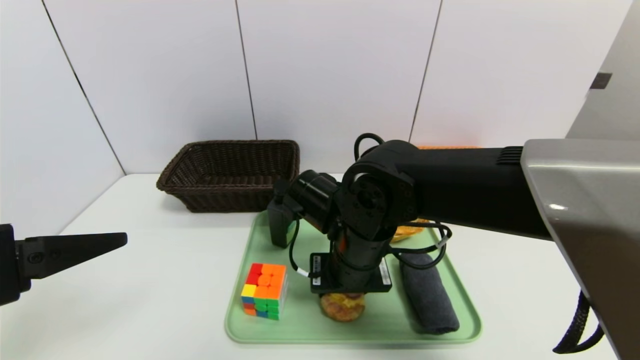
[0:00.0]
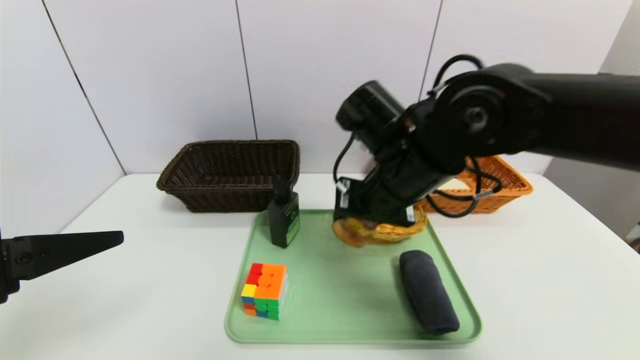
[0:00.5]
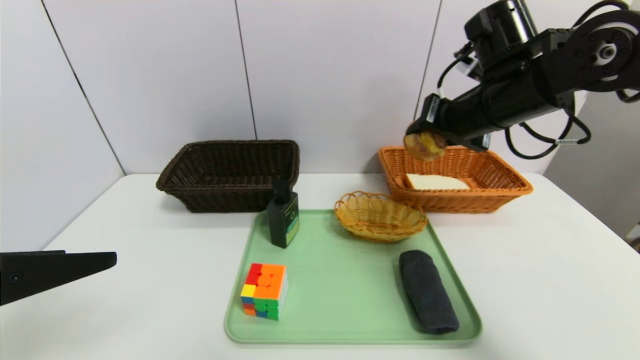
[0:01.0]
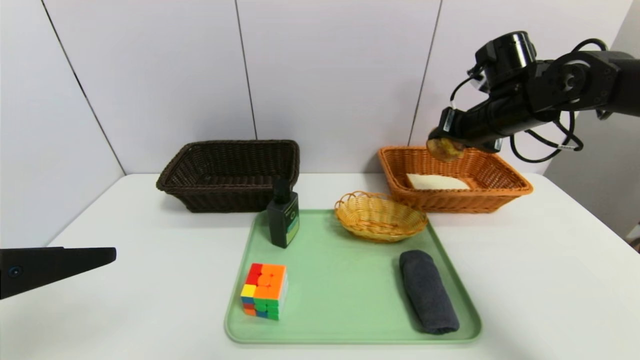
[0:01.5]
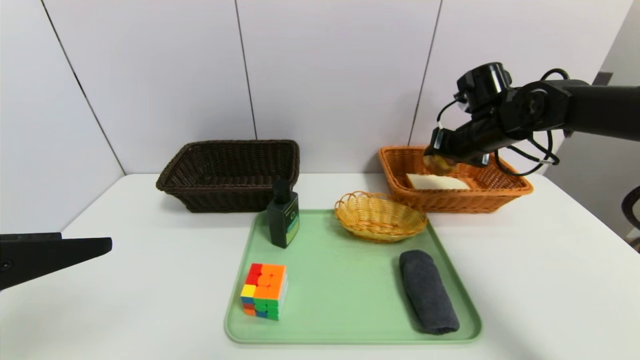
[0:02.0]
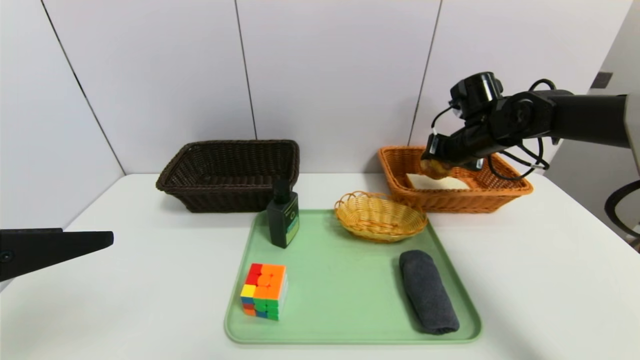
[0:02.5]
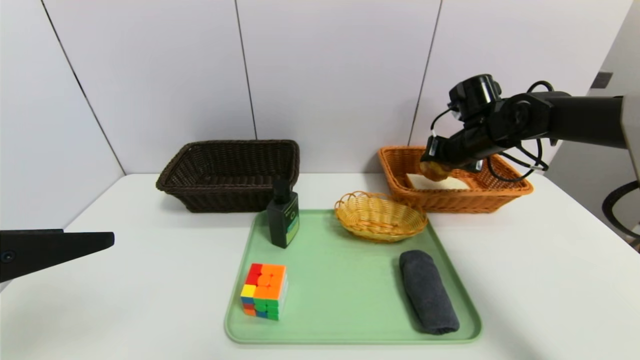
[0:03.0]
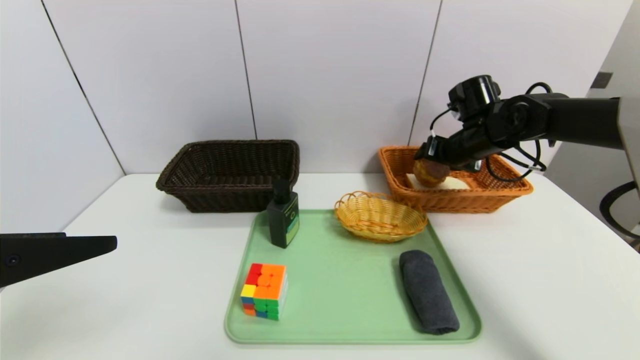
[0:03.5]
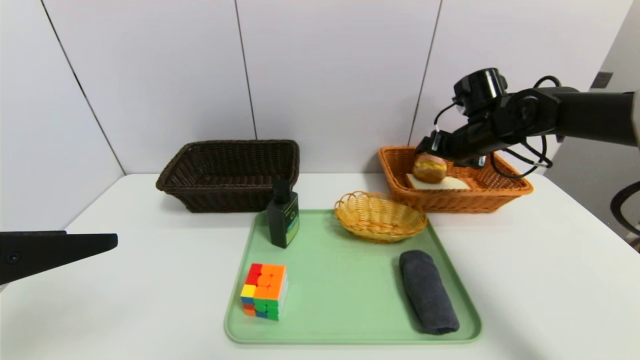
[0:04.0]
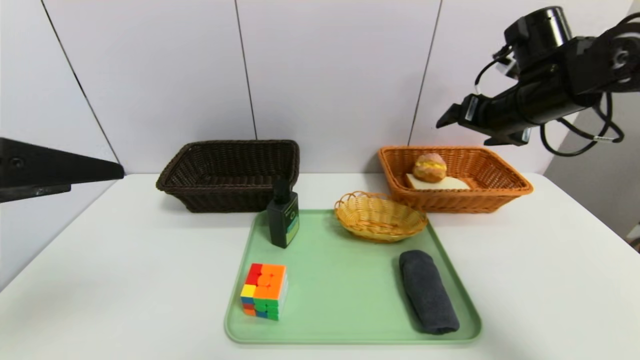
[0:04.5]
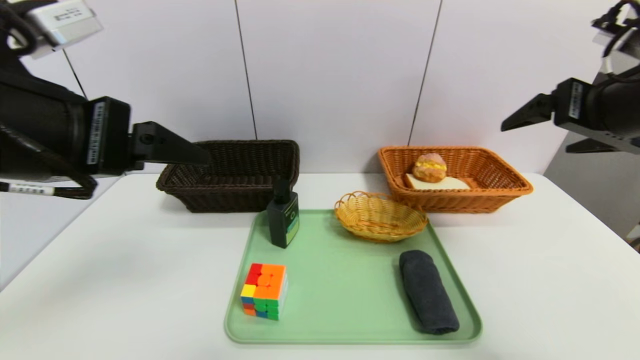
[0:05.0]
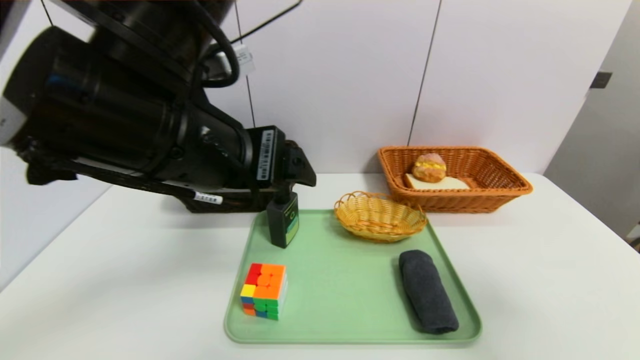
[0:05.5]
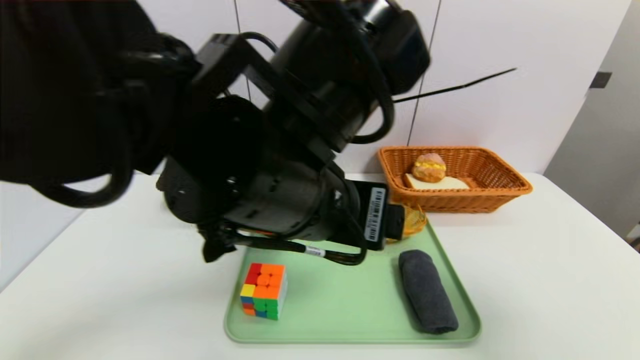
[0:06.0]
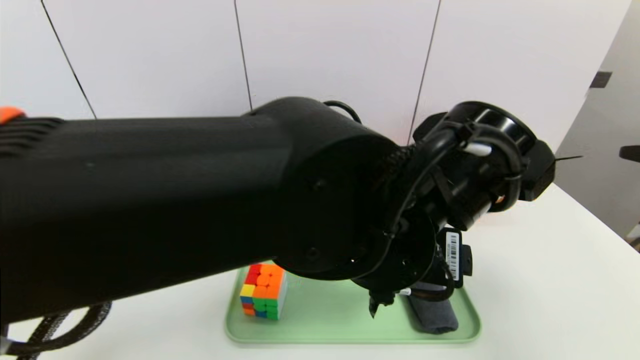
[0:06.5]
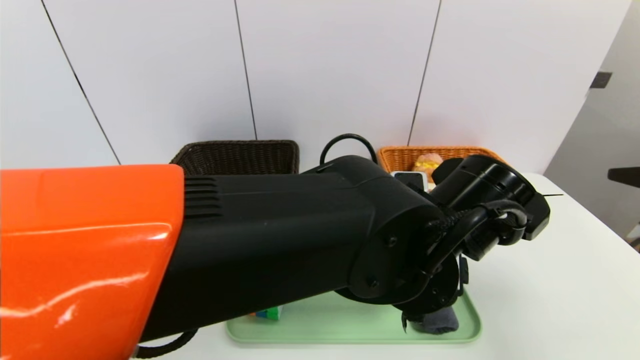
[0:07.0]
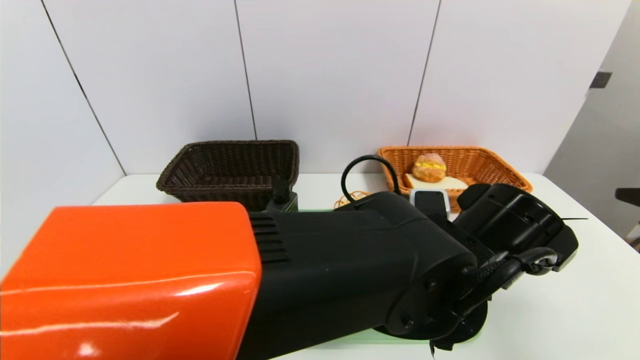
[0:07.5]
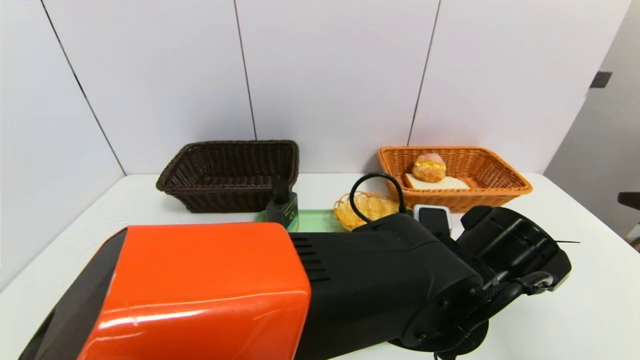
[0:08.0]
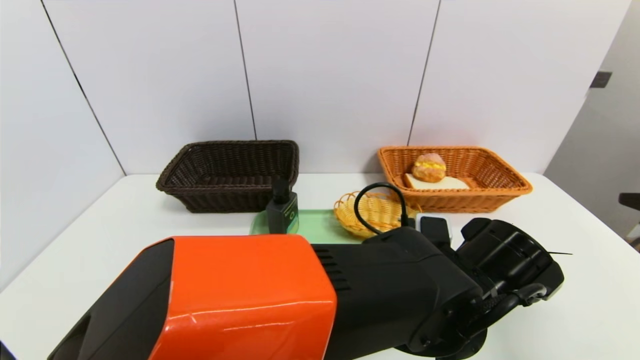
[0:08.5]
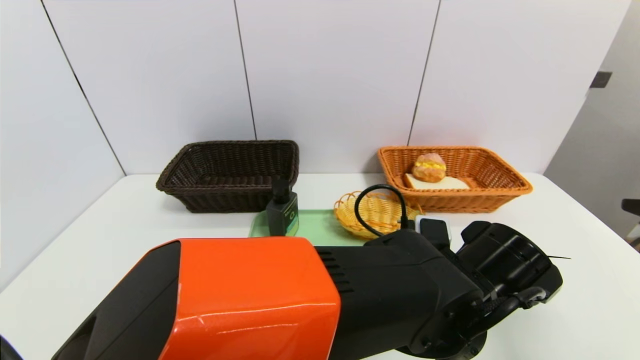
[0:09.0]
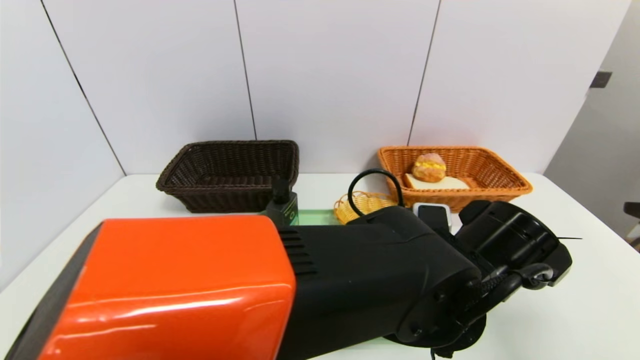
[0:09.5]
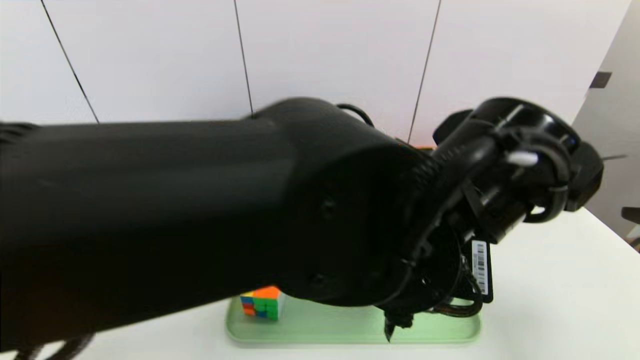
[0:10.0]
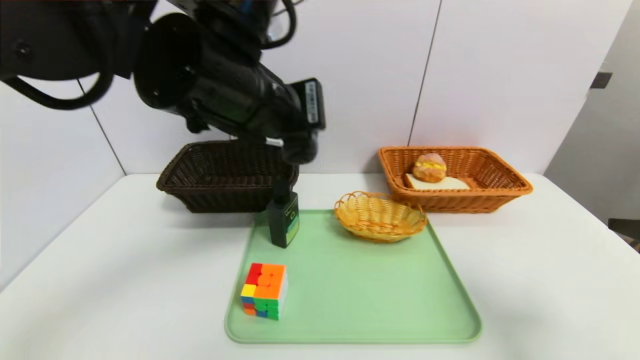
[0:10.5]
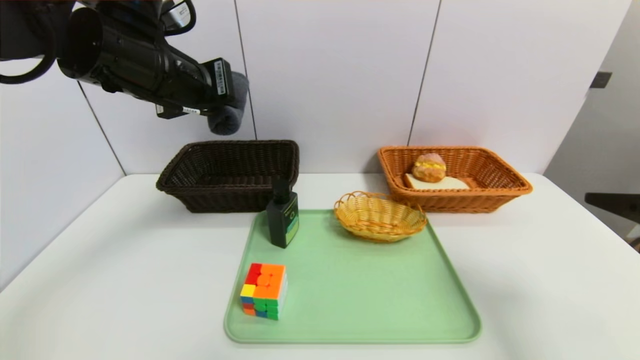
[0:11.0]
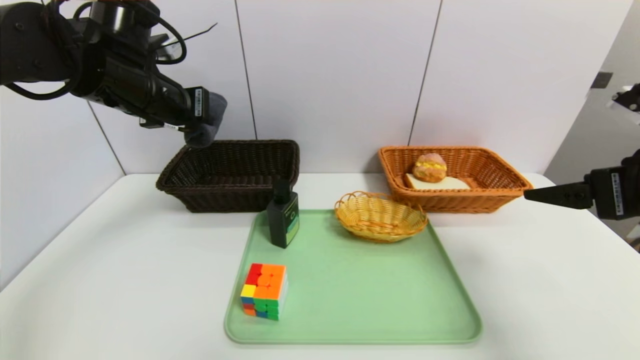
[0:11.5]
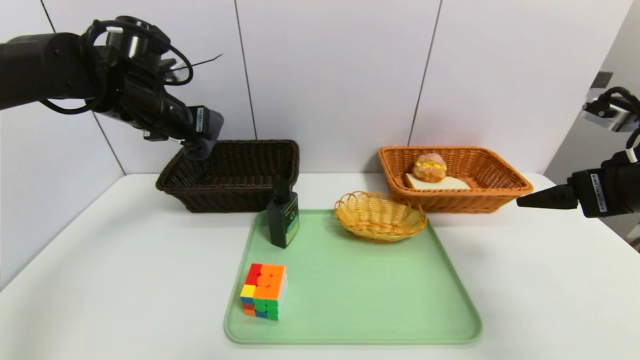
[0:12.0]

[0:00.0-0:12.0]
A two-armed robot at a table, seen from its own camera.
Task of the whole recording: place the food in the right basket with the right gripper, and place the non food items in the left basket with the left gripper.
Step, 0:00.0 to 0:04.0: Grasp the egg yolk pastry and put it in the right basket.
0:00.0 to 0:02.0: The right gripper goes some 30 cm to the right and forward.
0:02.0 to 0:04.0: The right gripper opens up.
0:04.0 to 0:06.0: The left gripper is displaced to the right by approximately 25 cm. The right gripper goes some 35 cm backward.
0:06.0 to 0:08.0: The left gripper goes about 20 cm downward and to the right.
0:08.0 to 0:10.0: The left gripper goes some 10 cm upward and to the left, and closes its fingers.
0:10.0 to 0:12.0: The right gripper goes about 10 cm forward, while the left gripper shifts about 35 cm to the left and forward.

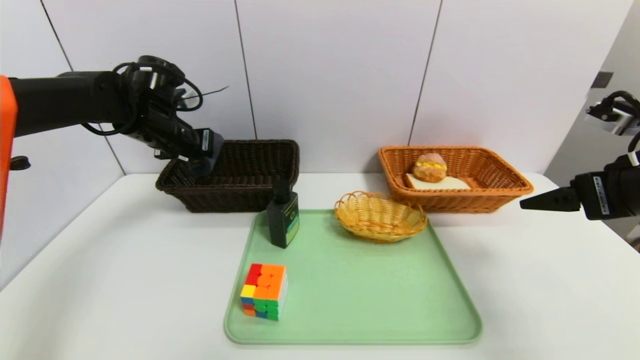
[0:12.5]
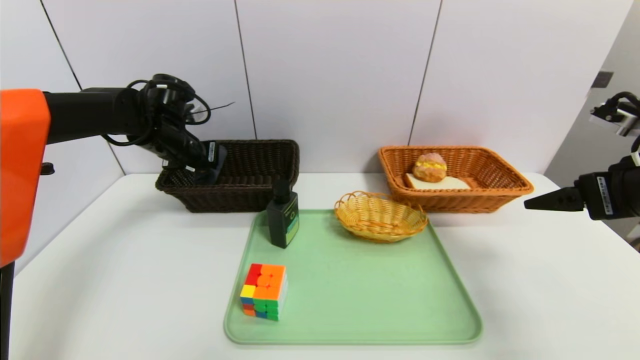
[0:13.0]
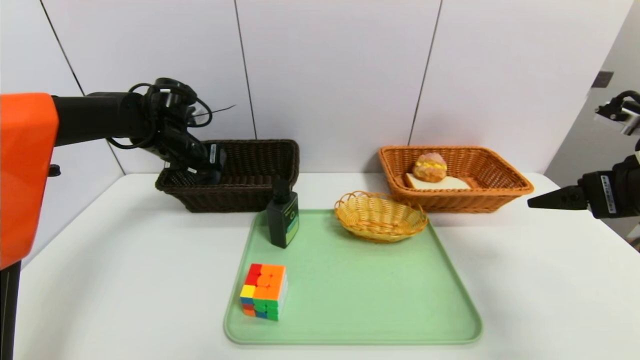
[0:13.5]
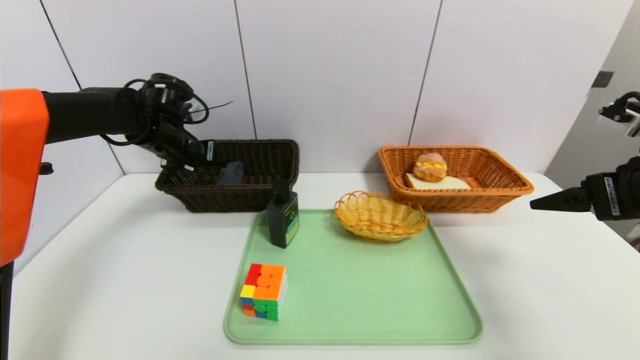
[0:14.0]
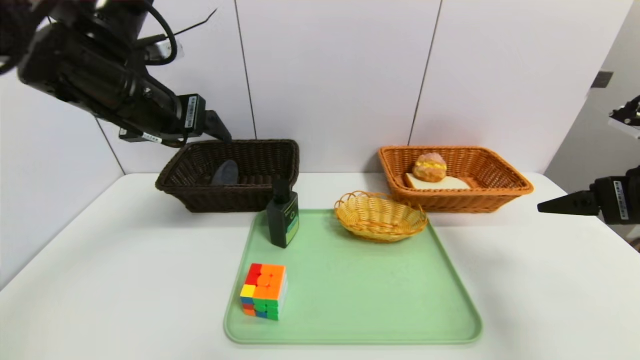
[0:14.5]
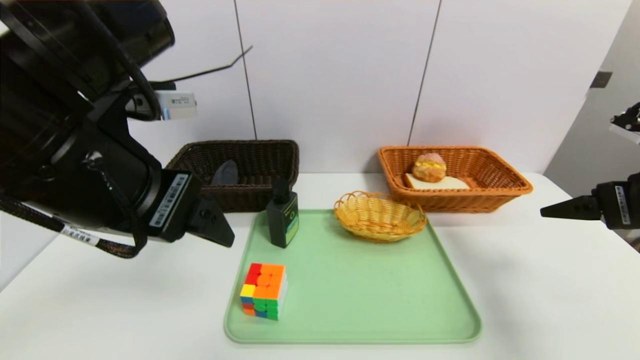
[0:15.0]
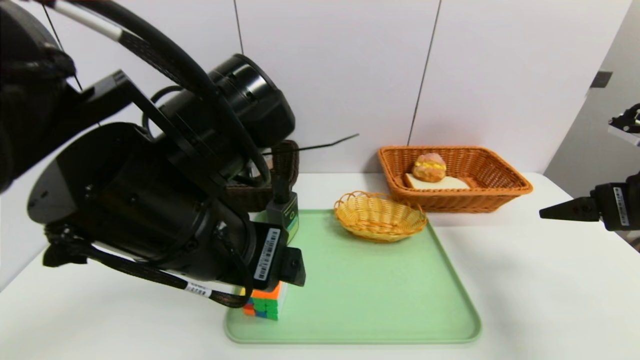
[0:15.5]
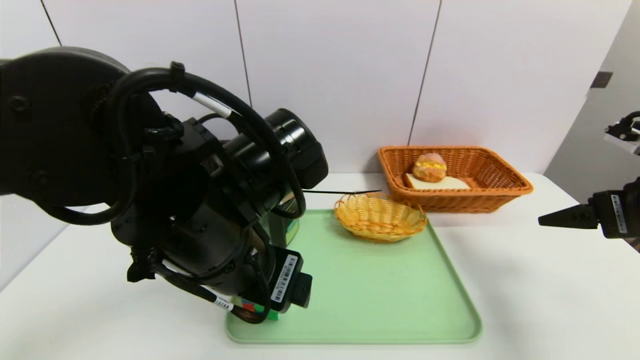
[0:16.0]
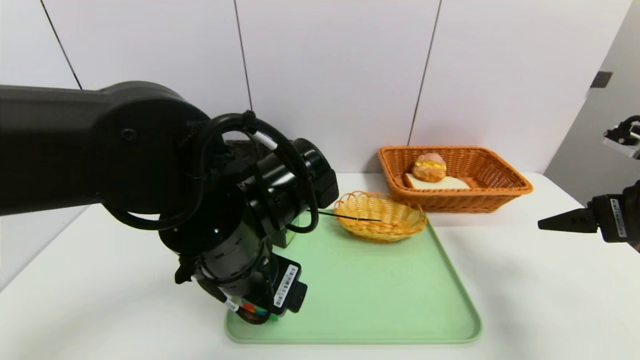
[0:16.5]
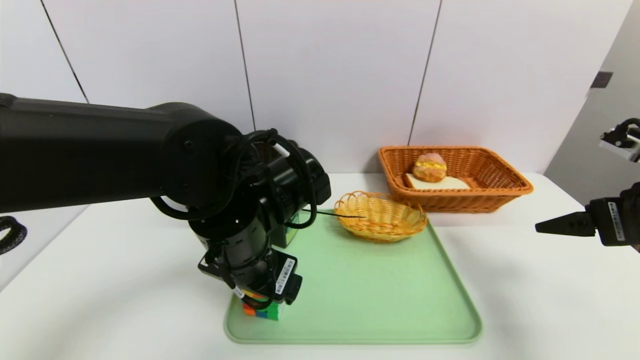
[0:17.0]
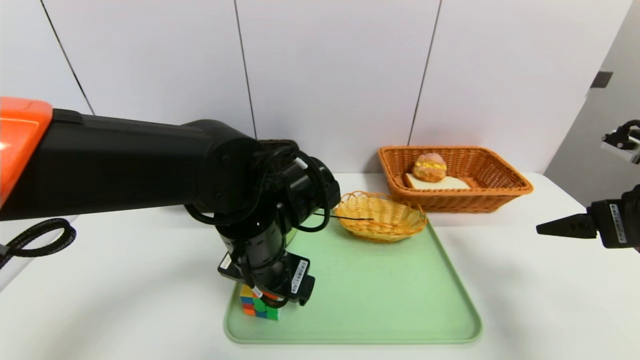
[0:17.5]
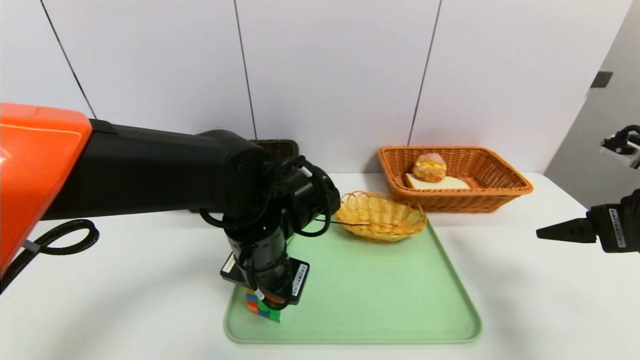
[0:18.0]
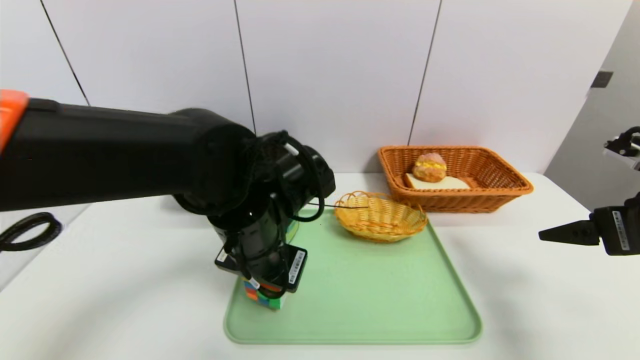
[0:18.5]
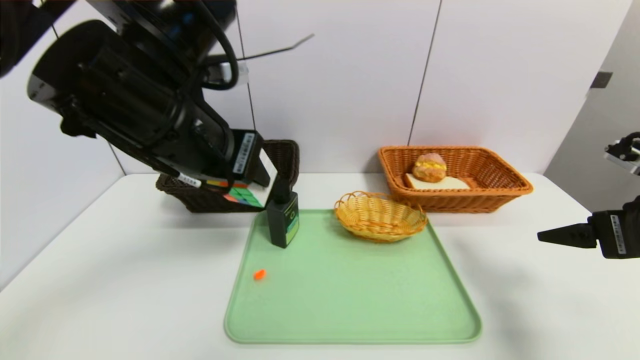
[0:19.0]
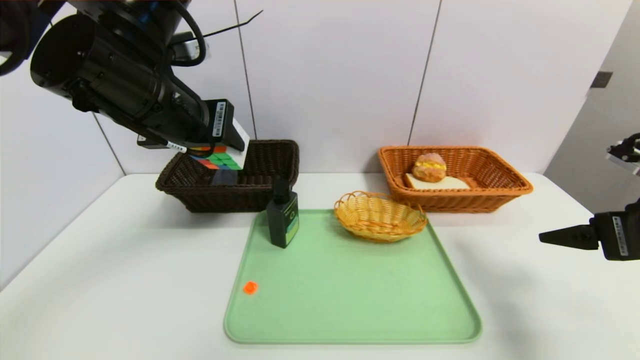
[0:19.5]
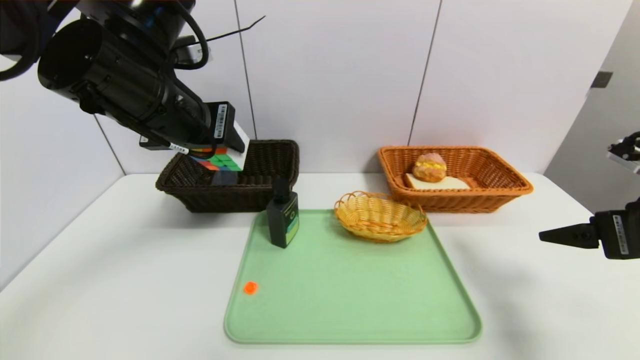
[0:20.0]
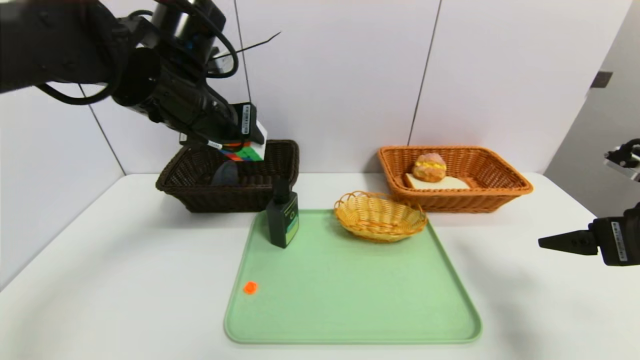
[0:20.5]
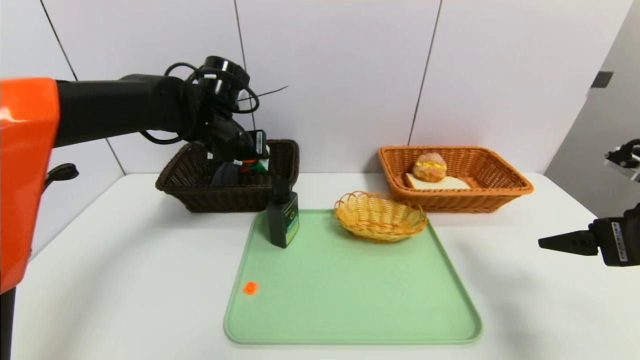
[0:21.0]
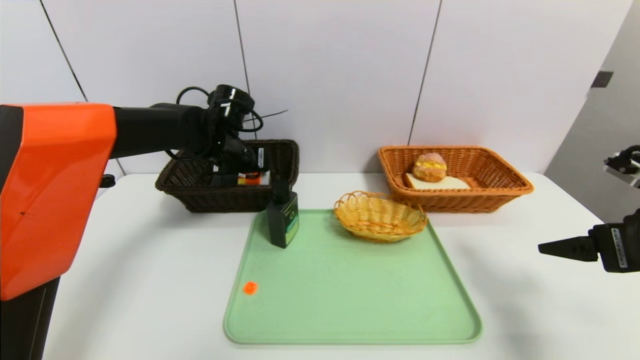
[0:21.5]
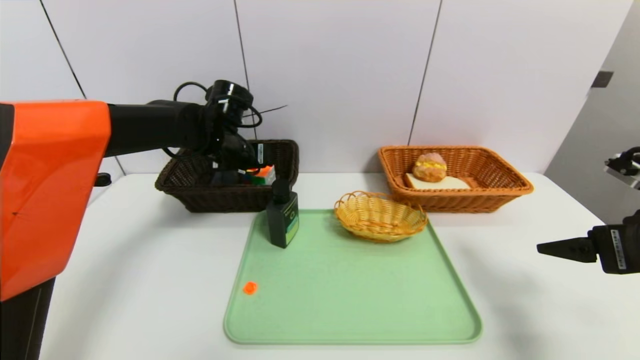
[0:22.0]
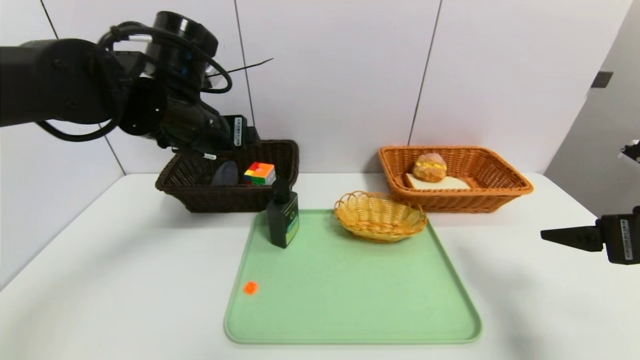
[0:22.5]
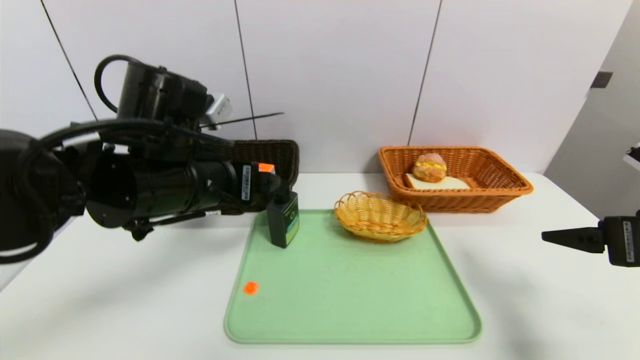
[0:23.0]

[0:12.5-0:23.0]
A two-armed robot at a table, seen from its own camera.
Task of the whole recording: place the food in the right basket with the right gripper, and place the non food items in the left basket with the left gripper.
Step, 0:14.5 to 0:22.0: Grasp the rubiks cube and put it in the left basket.
0:12.5 to 0:14.5: The left gripper goes about 15 cm backward and upward, and opens.
0:14.5 to 0:16.5: The left gripper shifts some 20 cm to the right, downward and backward.
0:16.5 to 0:19.0: The left gripper shifts roughly 10 cm upward and to the left, and closes up.
0:19.0 to 0:21.0: The left gripper shifts roughly 20 cm forward and downward.
0:21.0 to 0:23.0: The left gripper moves backward, some 15 cm, and opens.
